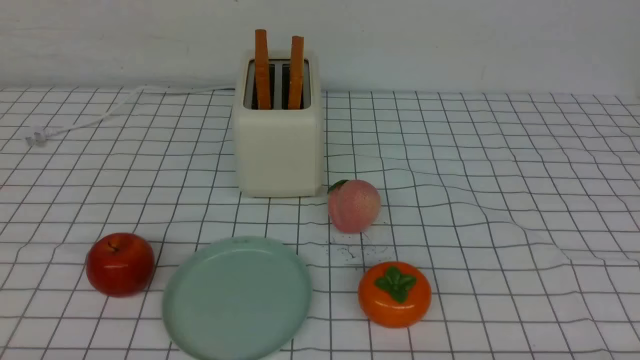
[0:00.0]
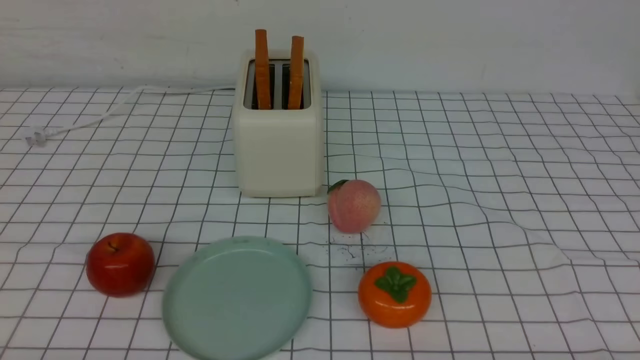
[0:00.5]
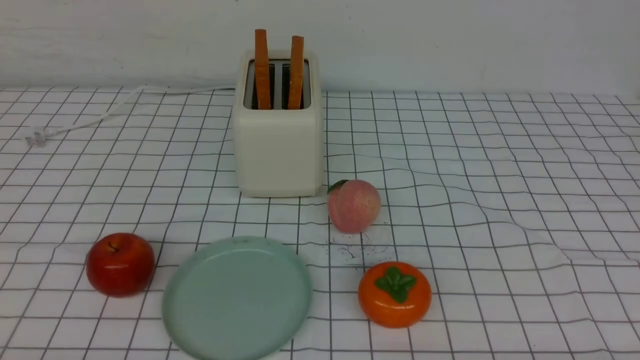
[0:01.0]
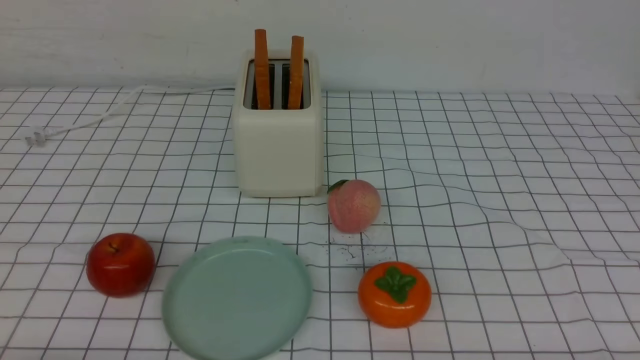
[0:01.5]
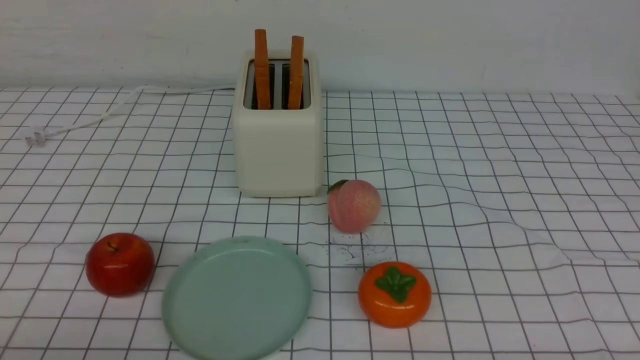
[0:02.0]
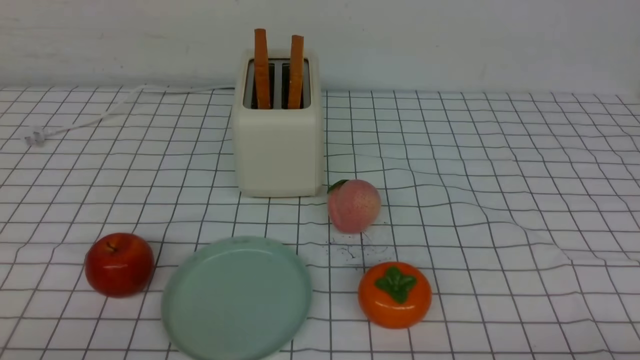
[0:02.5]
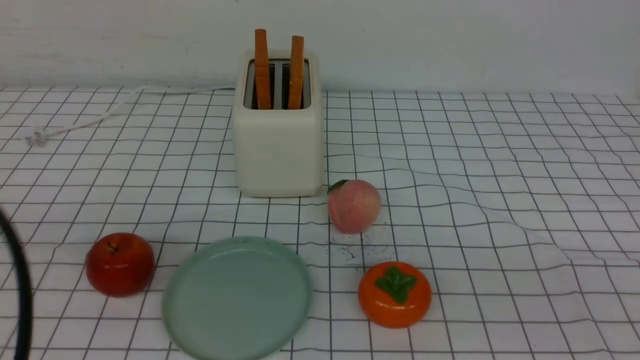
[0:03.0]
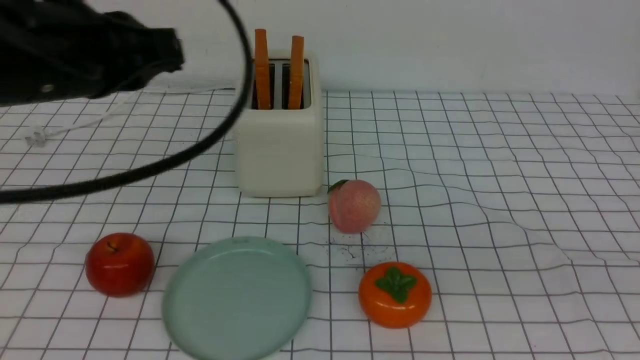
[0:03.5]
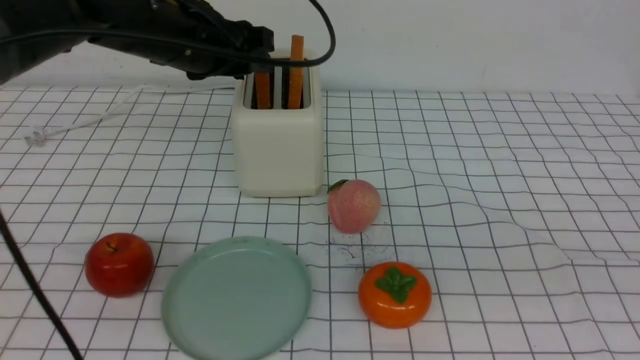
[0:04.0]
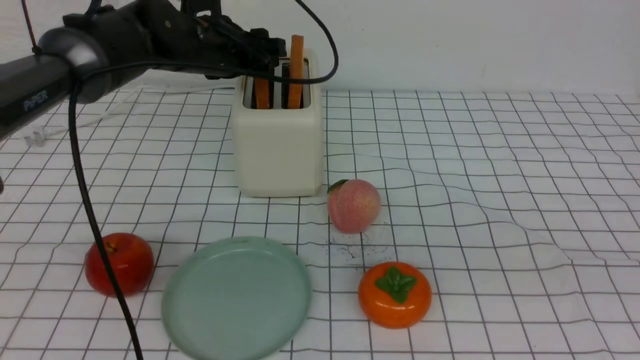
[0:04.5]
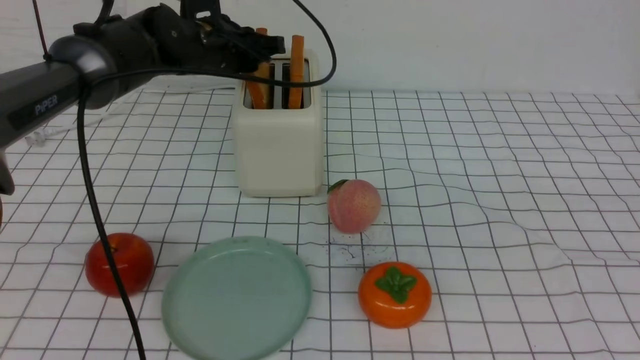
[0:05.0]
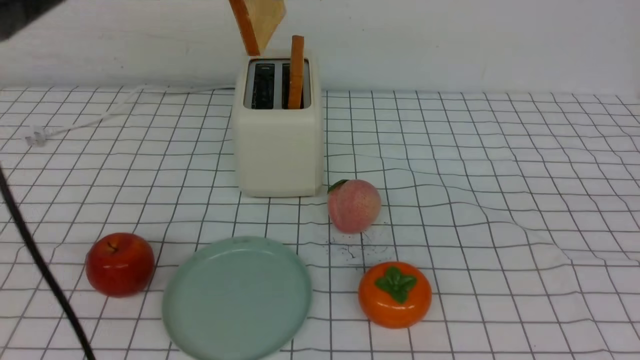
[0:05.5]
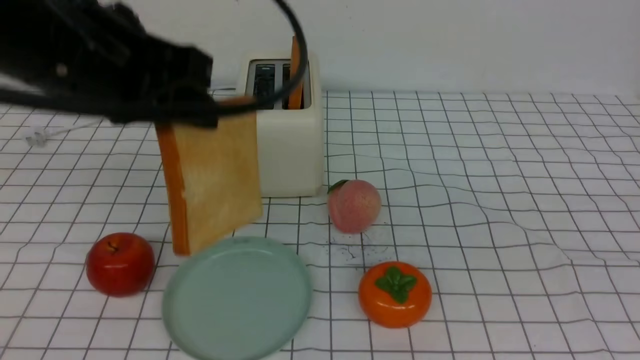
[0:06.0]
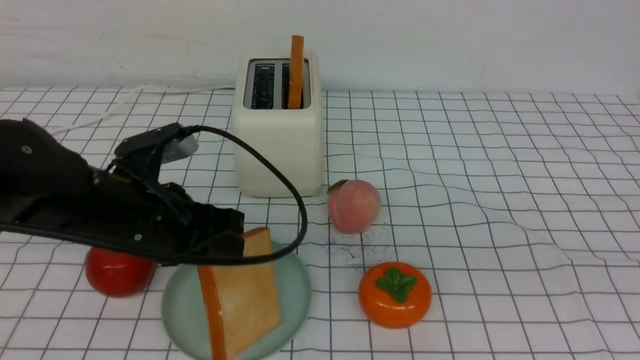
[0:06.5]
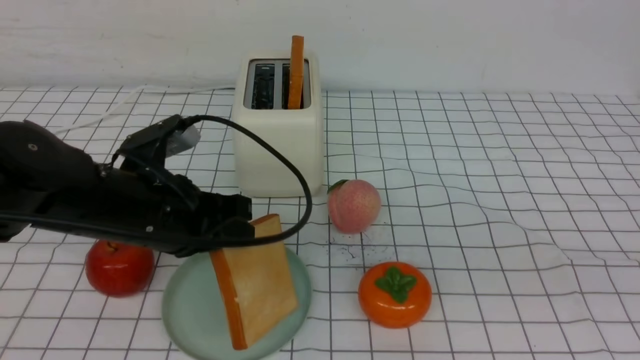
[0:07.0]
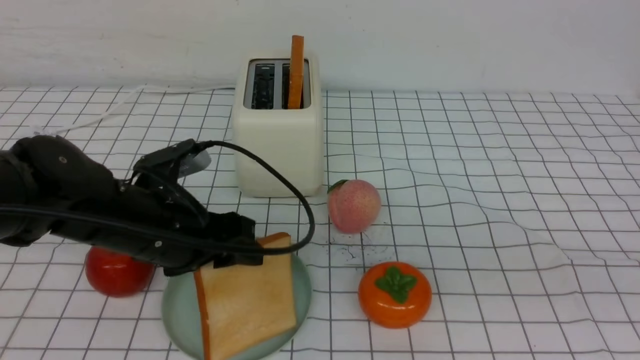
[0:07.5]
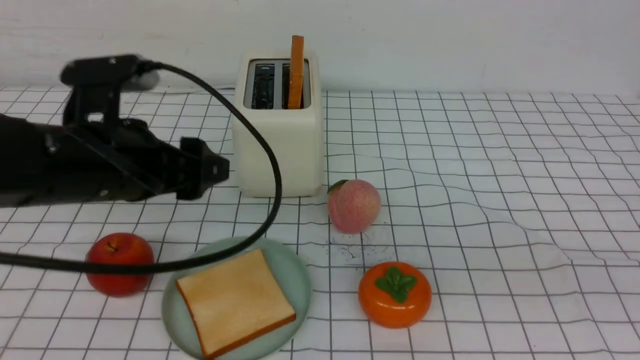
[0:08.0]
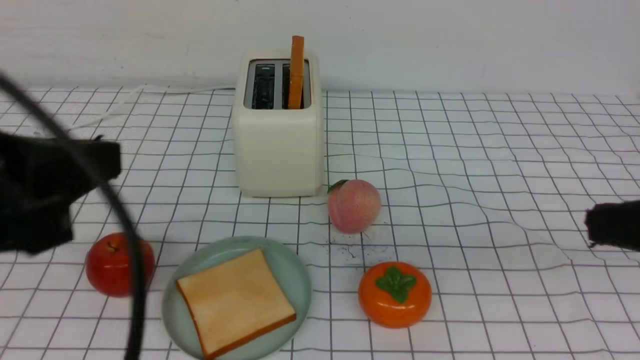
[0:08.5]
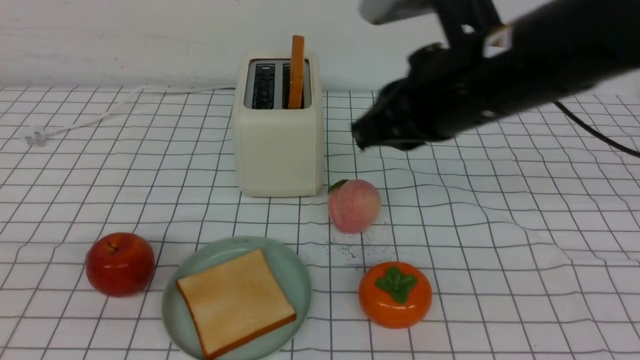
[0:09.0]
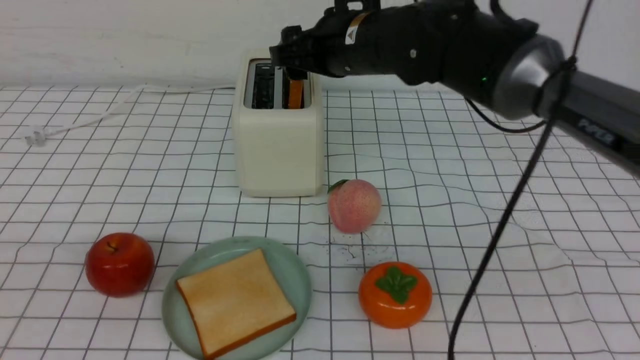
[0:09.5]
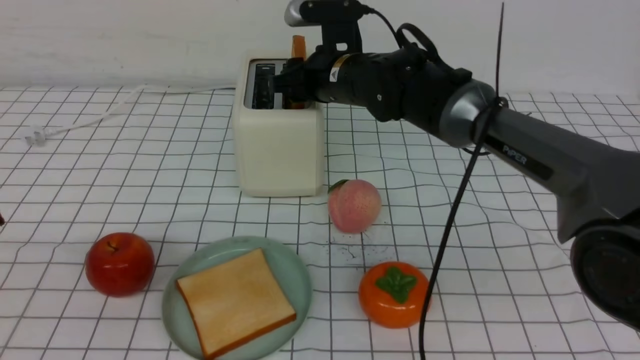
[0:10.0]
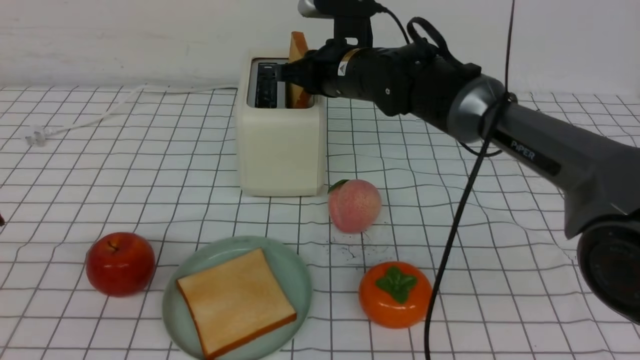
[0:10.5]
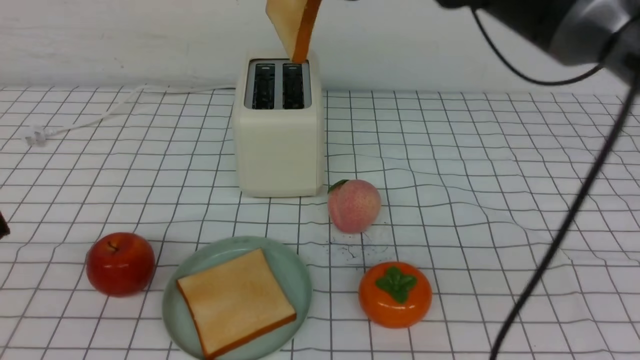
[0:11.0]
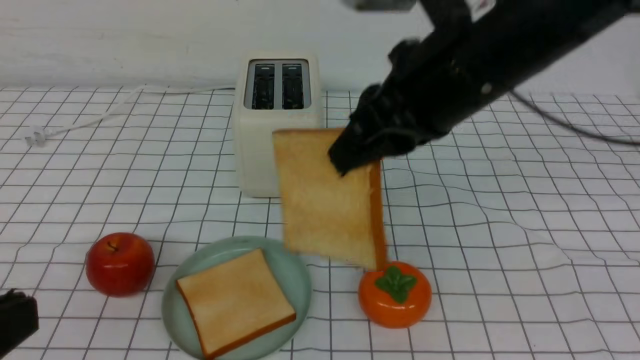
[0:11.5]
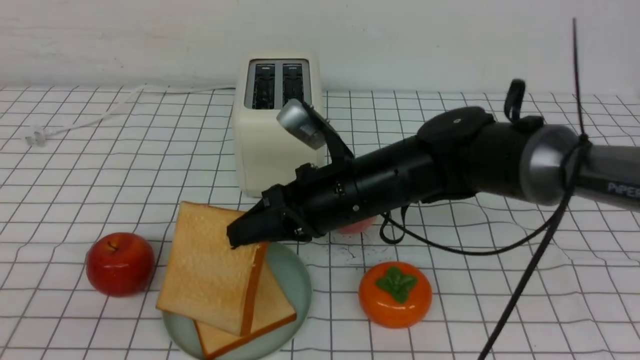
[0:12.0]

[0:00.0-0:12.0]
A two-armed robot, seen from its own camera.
Task of the whole recording: take toasted bread from bread machine on white checkered table place on plate.
Step, 0:00.0 to 0:05.0: use the left arm to take out a slice of bread.
Step, 0:05.5 to 0:08.0: use the left arm to put a slice of bread into the empty plate.
Step, 0:08.5 to 0:11.0: use the right arm to take out a slice of bread.
0:02.0 to 0:04.0: The right gripper moves upward, roughly 25 cm, and closes its fingers. The left gripper shifts roughly 40 cm forward and upward, and closes, then reopens.
0:04.0 to 0:06.0: The left gripper moves backward, some 15 cm, and closes up.
0:06.0 to 0:08.0: The left gripper travels downward by some 5 cm, and opens up.
0:08.0 to 0:10.0: The left gripper moves backward, approximately 20 cm, and closes, while the right gripper heads forward and to the left, covering some 40 cm, and opens.
0:10.0 to 0:12.0: The right gripper shifts roughly 15 cm backward, and closes up.

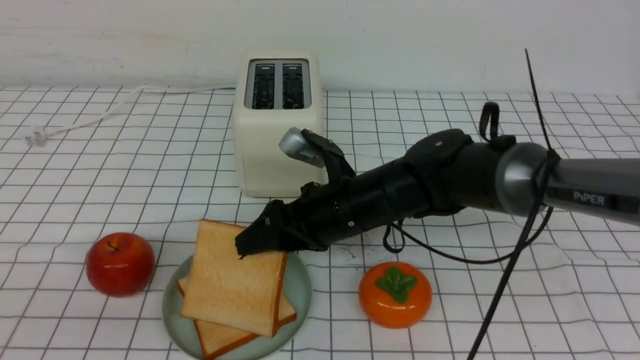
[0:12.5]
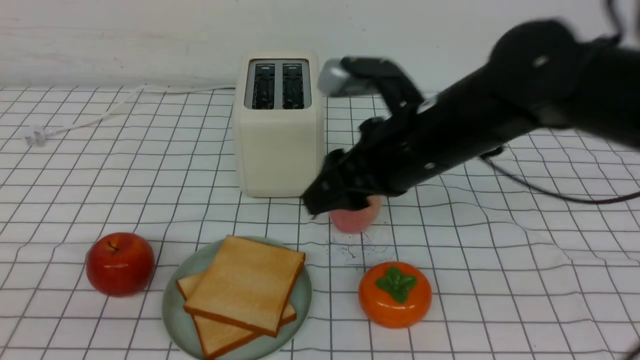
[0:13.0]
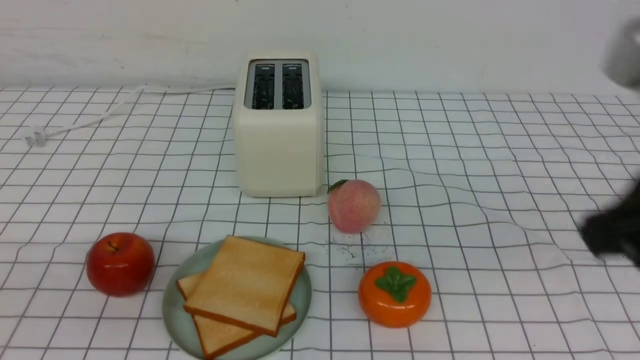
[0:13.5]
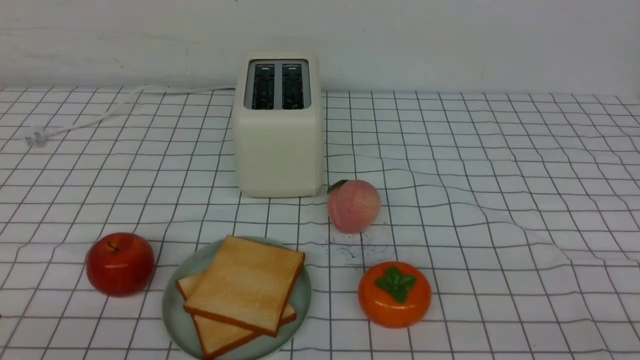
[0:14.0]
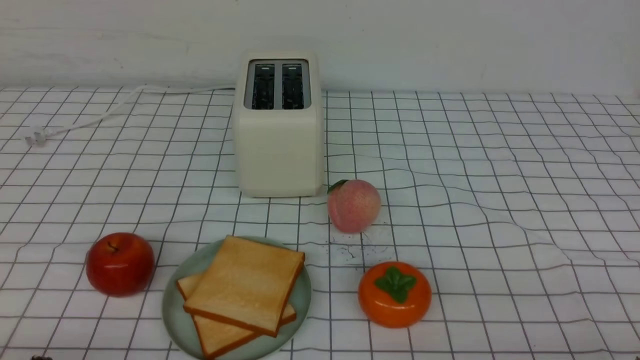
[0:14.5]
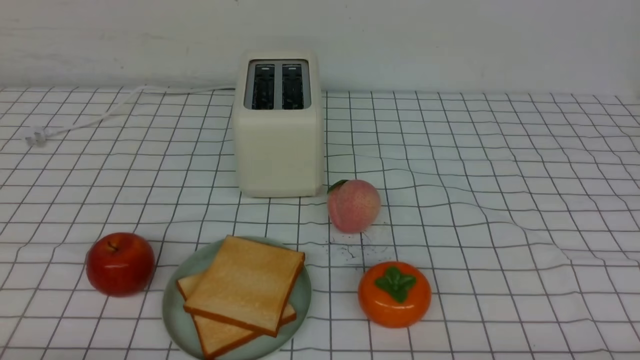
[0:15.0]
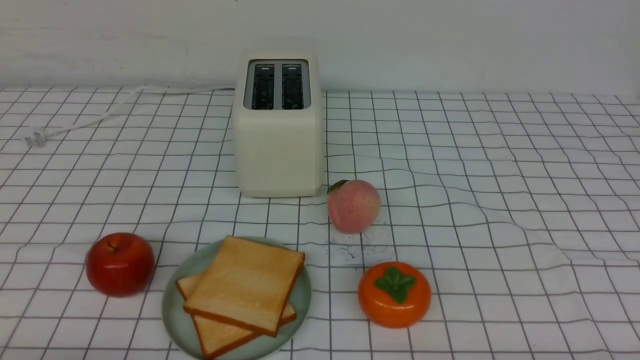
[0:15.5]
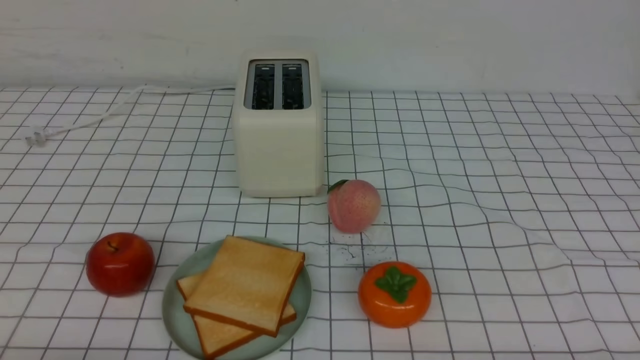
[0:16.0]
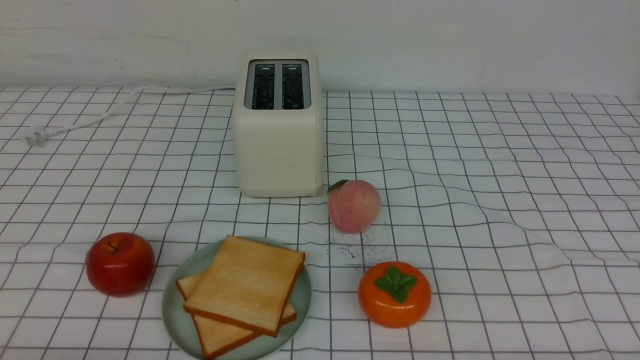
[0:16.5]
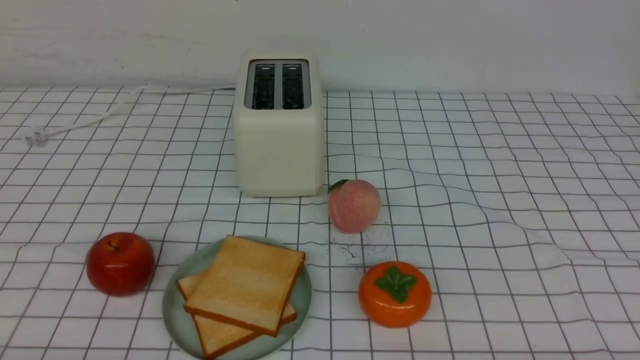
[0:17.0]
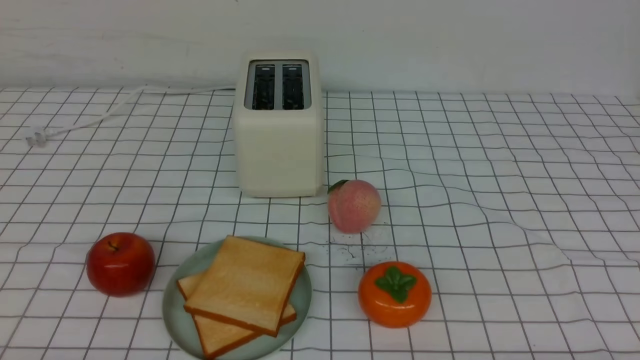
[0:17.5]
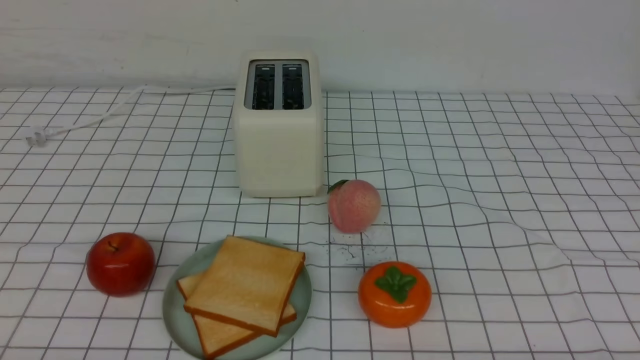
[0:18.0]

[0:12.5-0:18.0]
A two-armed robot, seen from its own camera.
Task of the whole recording: take toasted bread from bread machine on white checkered table place on plate.
0:12.5 to 0:14.5: The left gripper shifts about 15 cm downward; the right gripper shifts about 35 cm backward and to the right, and closes its fingers.
